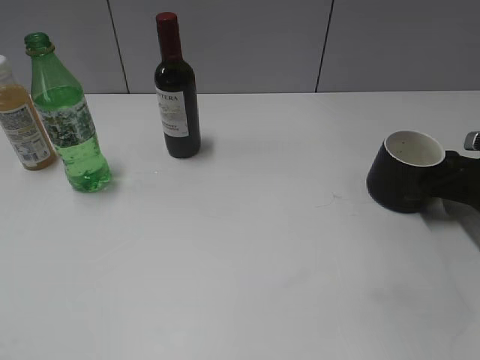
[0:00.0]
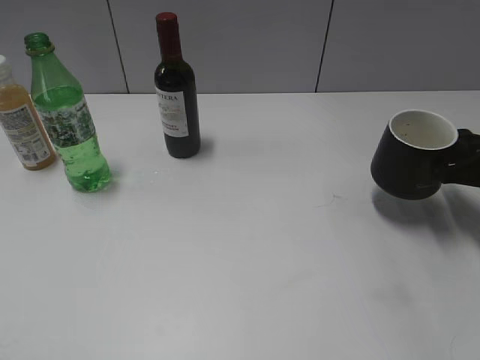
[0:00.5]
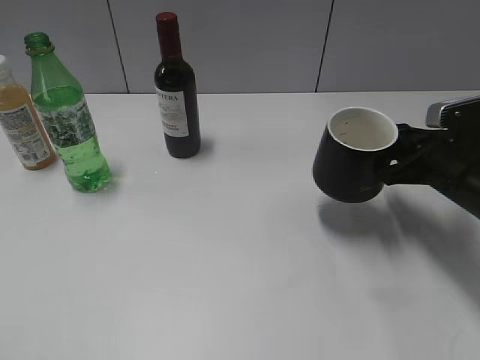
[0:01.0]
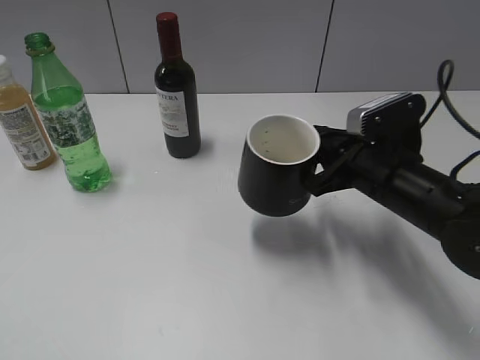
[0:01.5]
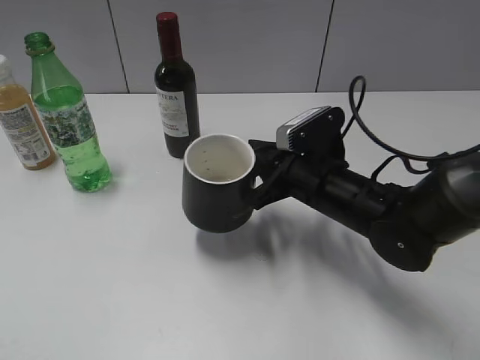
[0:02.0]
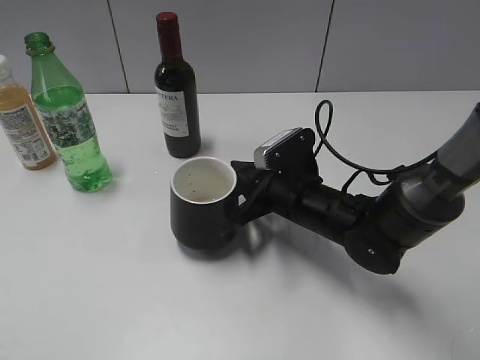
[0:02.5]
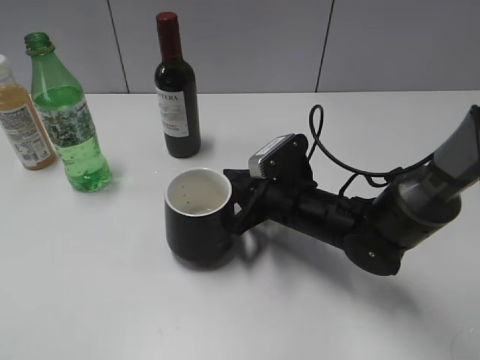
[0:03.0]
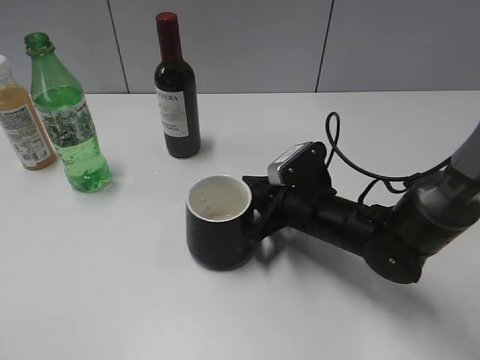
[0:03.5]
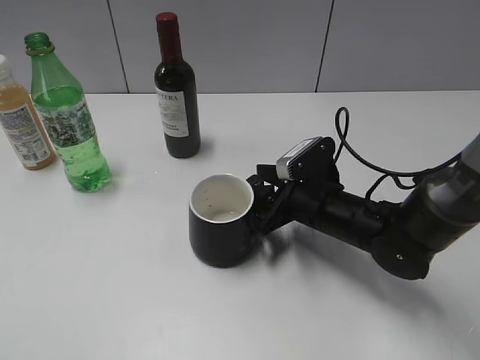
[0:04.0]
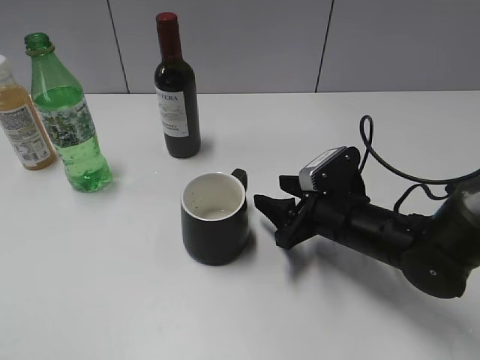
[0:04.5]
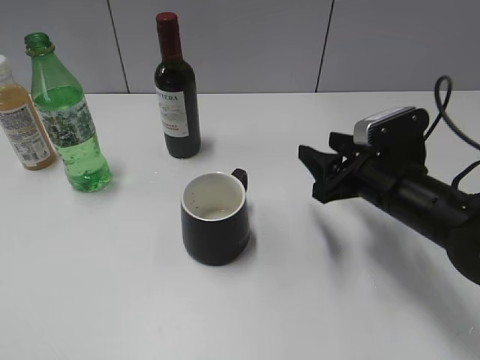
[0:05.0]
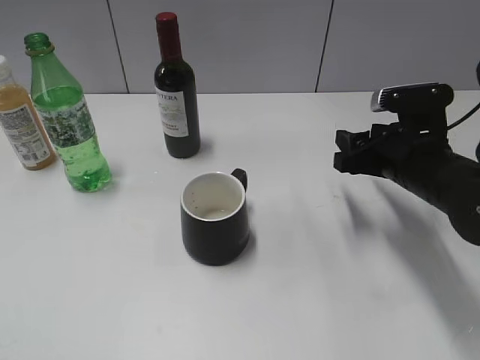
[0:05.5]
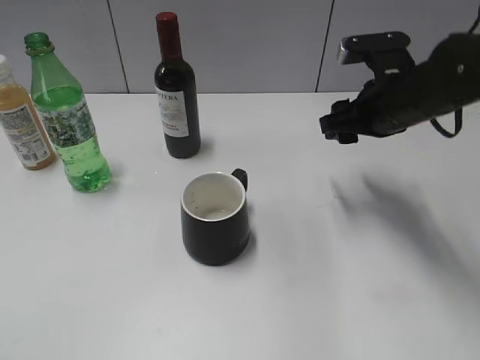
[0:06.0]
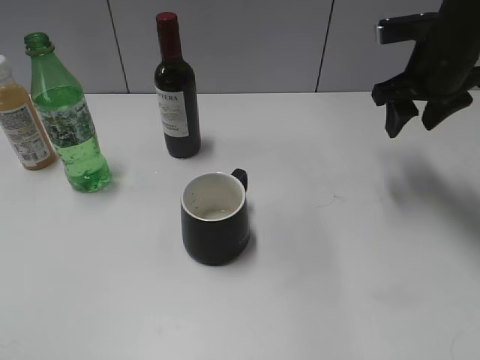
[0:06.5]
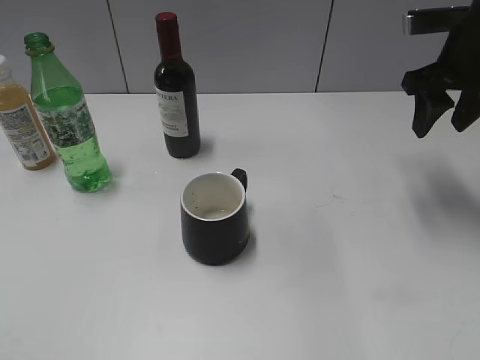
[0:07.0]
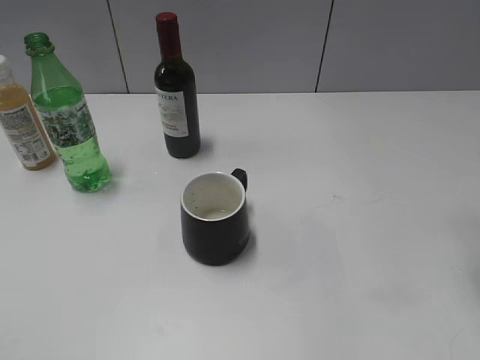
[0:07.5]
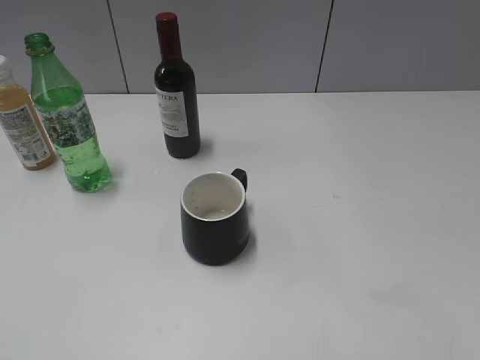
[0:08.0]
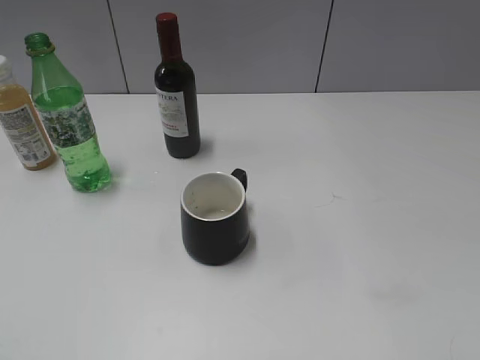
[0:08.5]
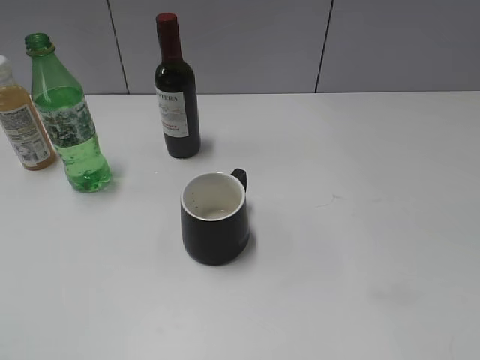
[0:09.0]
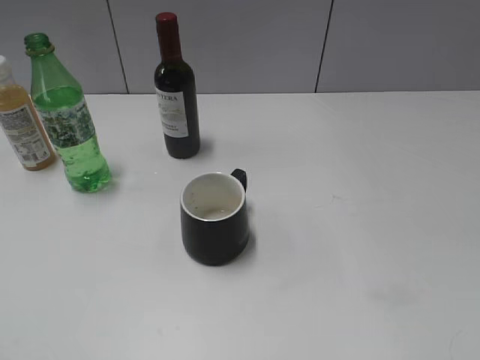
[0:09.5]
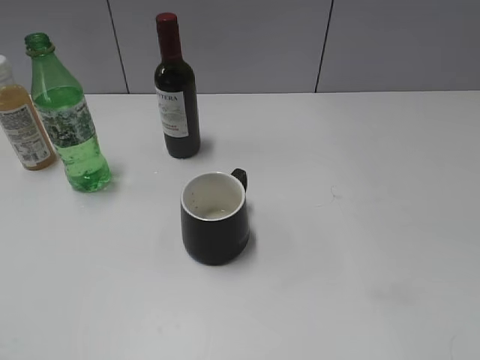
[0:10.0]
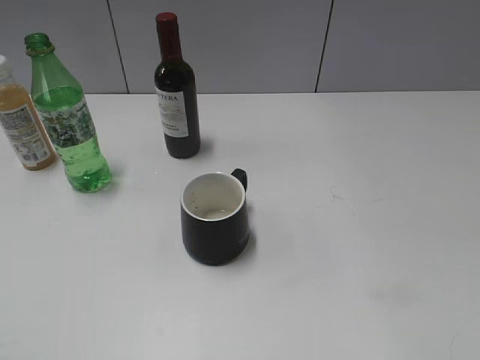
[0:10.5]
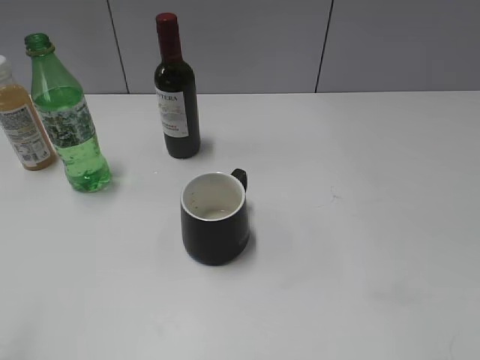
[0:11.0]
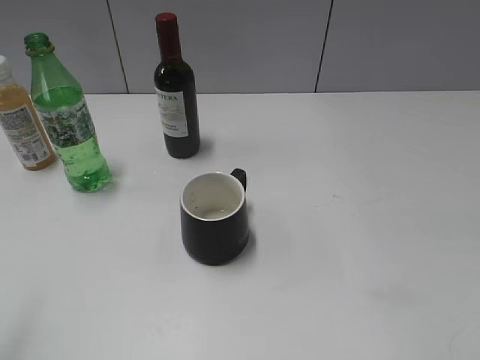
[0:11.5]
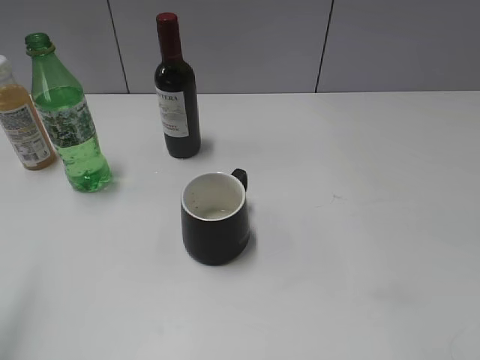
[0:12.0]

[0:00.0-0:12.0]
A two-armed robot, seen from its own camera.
Step, 0:00.5 to 0:04.0: Place the black cup in the center of view with right gripper.
0:00.0 to 0:02.0: The right gripper moves to the left, approximately 25 cm.
0:02.0 to 0:04.0: The right gripper shifts some 5 cm downward, and opens its fingers.
0:04.0 to 0:06.0: The right gripper is displaced upward, to the right and forward by approximately 15 cm.
0:06.0 to 0:08.0: The right gripper goes some 25 cm backward, to the right and upward.

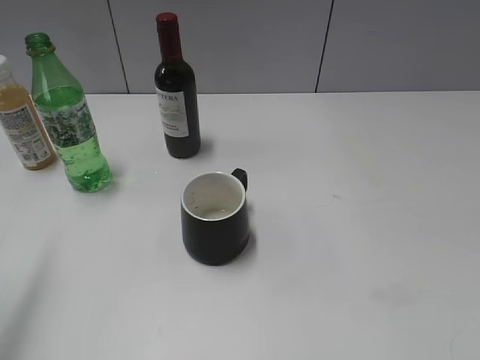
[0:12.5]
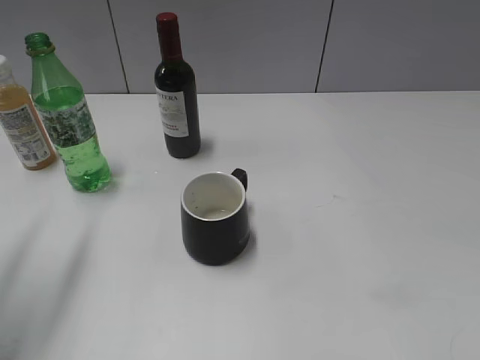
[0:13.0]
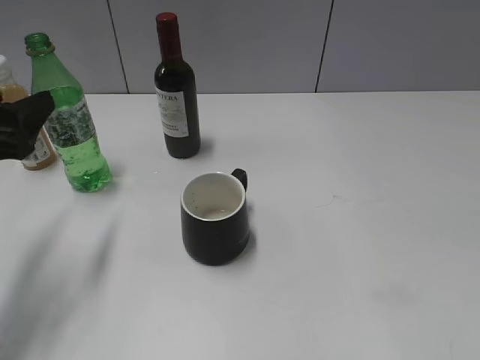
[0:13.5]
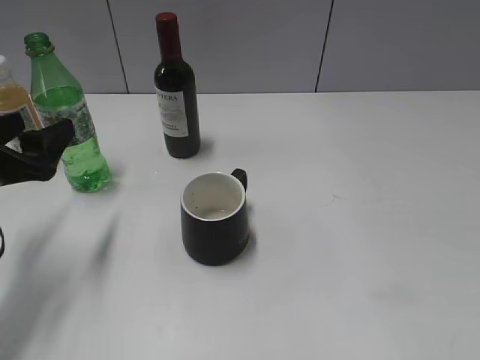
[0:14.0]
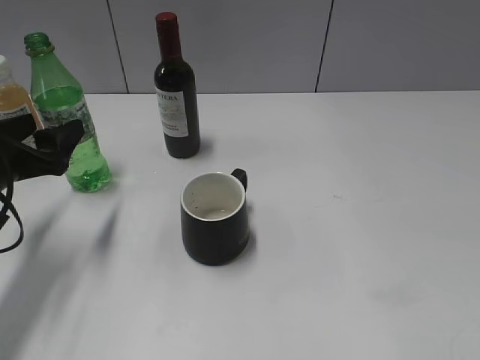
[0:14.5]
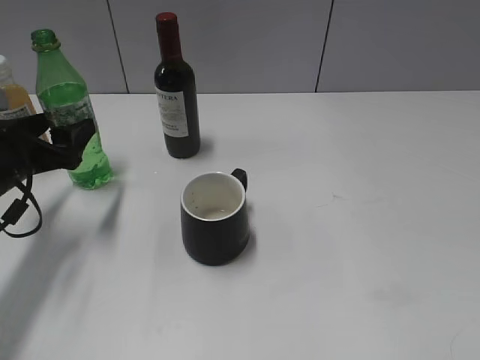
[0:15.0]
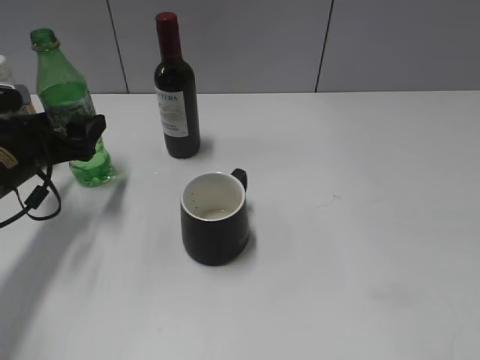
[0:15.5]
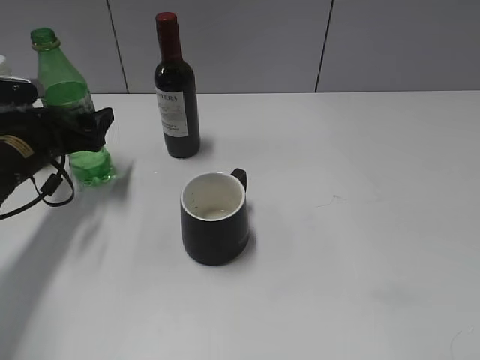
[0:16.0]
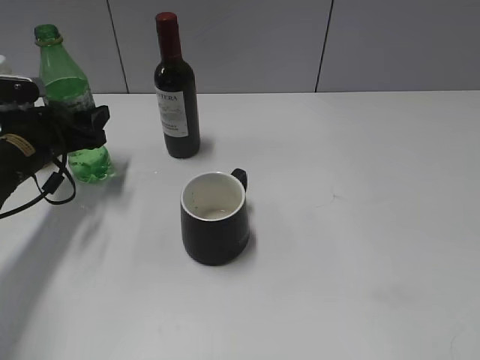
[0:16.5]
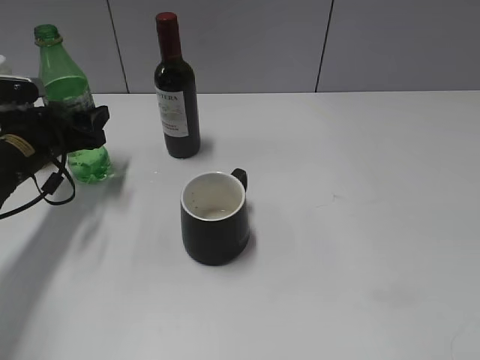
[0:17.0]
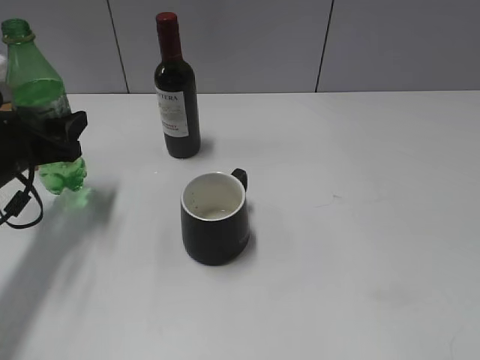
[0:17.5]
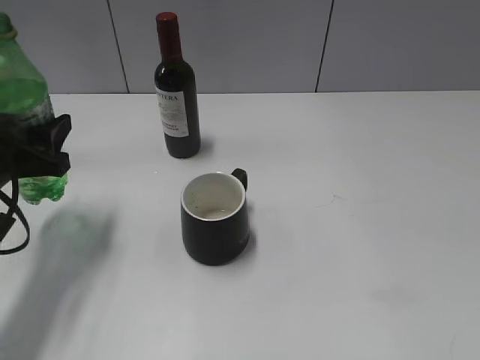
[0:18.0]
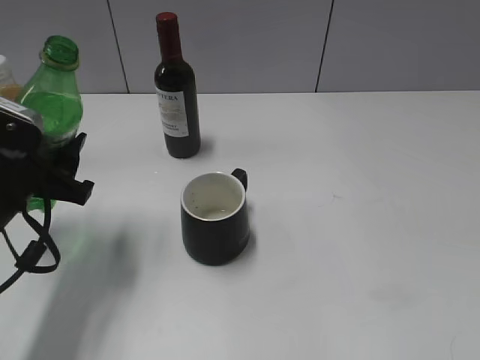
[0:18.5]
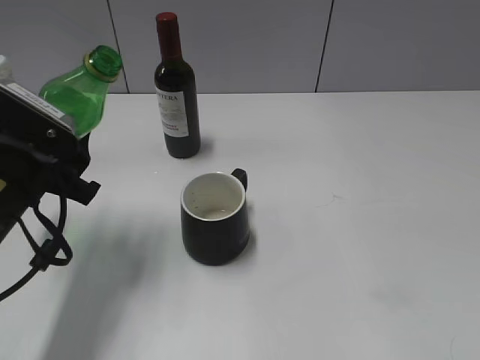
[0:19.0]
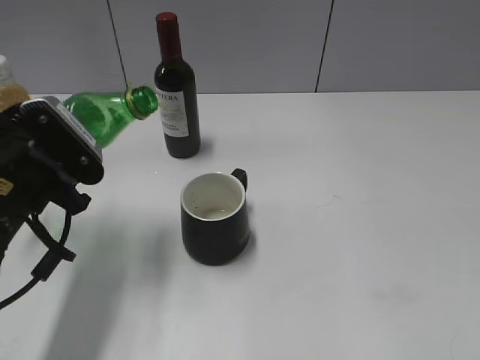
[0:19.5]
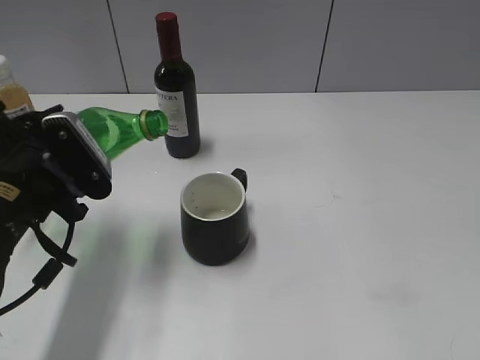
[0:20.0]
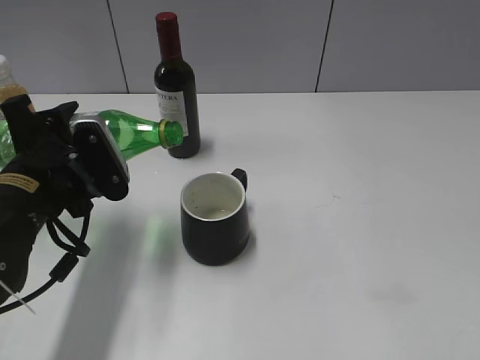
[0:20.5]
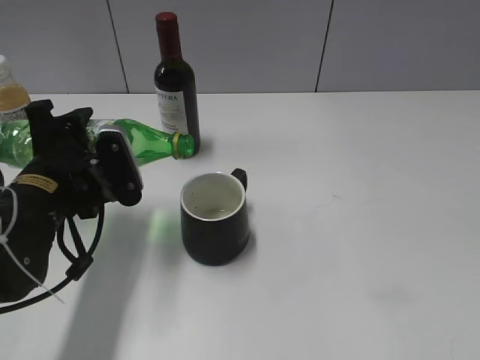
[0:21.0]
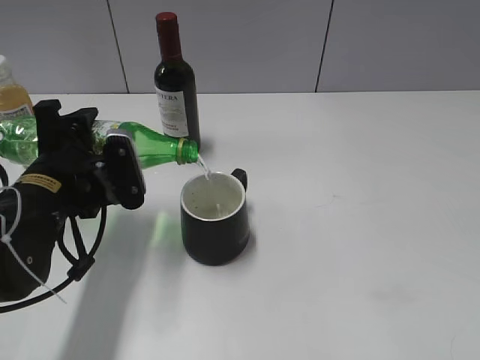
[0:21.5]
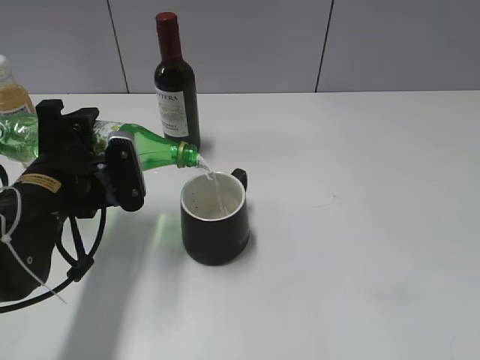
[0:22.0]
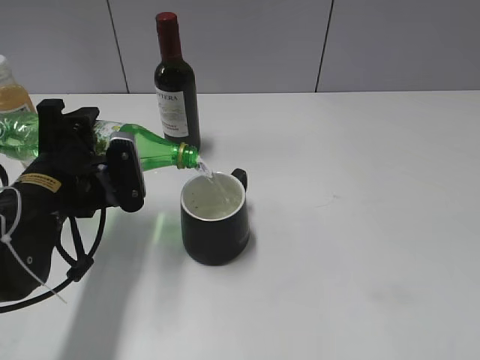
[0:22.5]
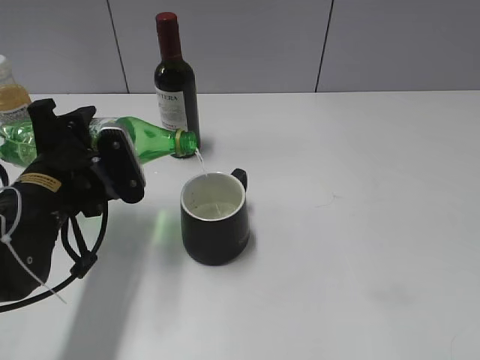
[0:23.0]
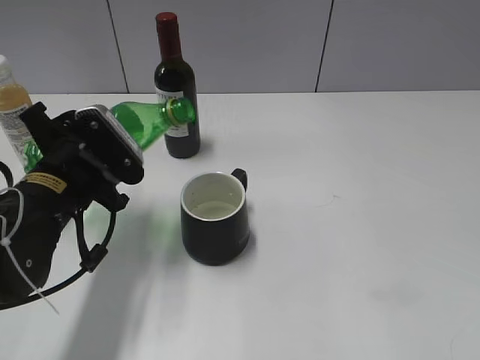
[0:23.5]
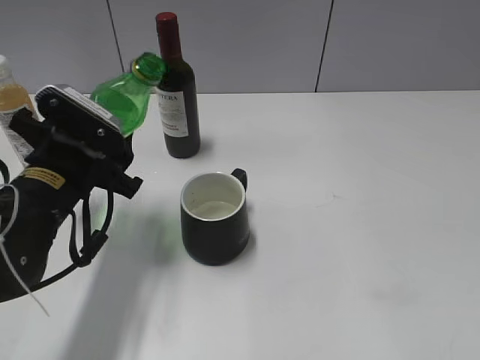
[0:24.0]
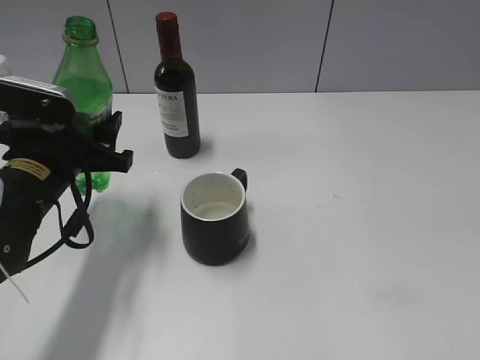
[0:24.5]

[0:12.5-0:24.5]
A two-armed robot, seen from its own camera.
Step, 0:12.5 to 0:16.5: Grasp the bottle with sprite with left gripper.
Step, 0:17.5 to 0:23.0: Pour the sprite from bottle to cup with left gripper.
0:12.5 to 0:14.5: The left gripper is displaced downward and forward by about 15 cm.
0:14.5 to 0:16.5: The left gripper heads forward, covering about 10 cm, and closes up.
0:16.5 to 0:18.5: The left gripper shifts approximately 15 cm backward.
0:20.5 to 0:22.5: There are only small adjustments of the grippers.

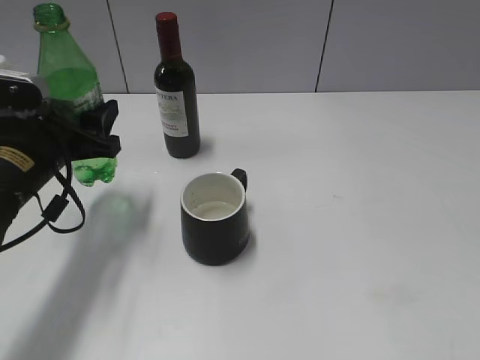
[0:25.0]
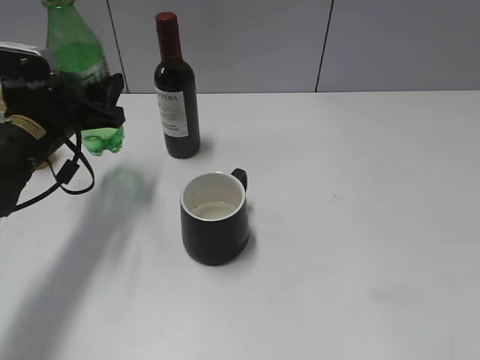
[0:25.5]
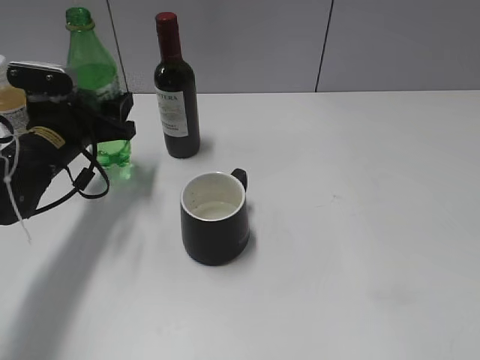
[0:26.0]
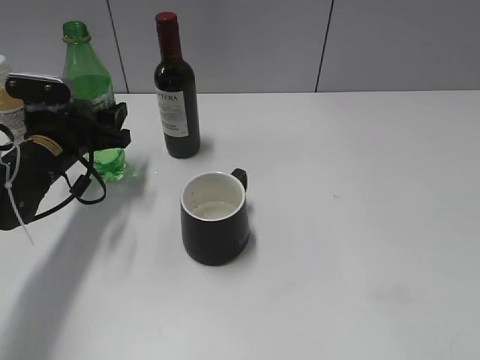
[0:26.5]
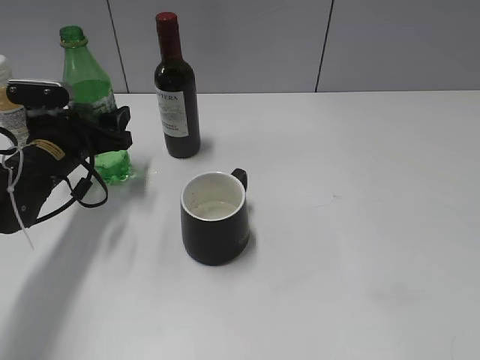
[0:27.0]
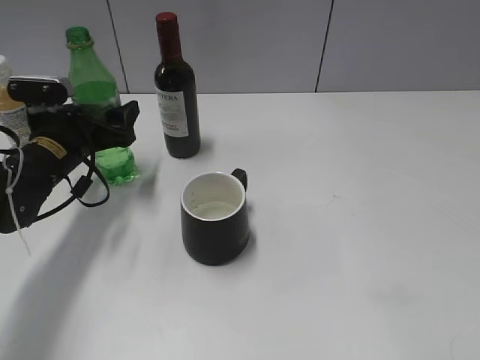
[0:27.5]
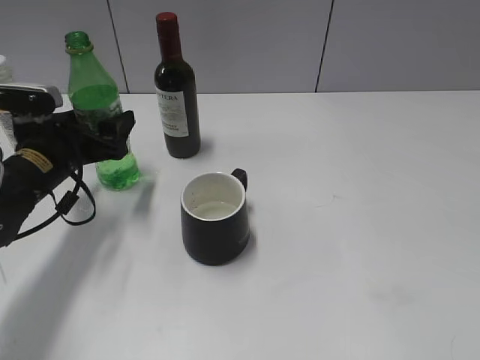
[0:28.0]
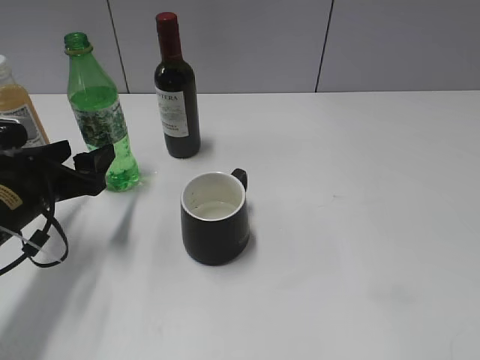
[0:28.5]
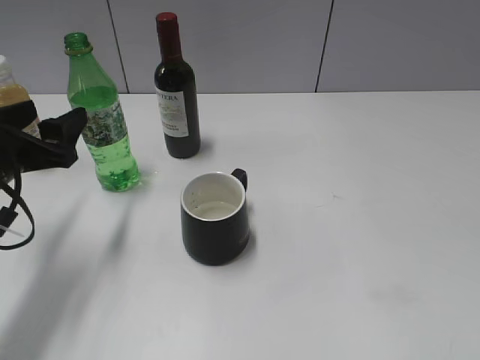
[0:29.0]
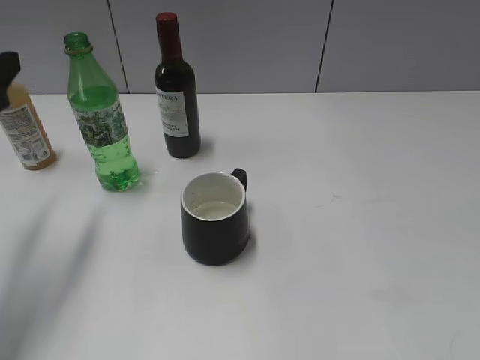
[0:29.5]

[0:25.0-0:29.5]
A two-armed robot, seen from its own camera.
Step, 0:25.0 to 0:28.5: Place the sprite bottle on the table with left gripper.
0:25.0 to 0:27.0: The left gripper moves forward, about 5 cm.
0:27.0 to 0:29.5: The left gripper heads upward, backward and to the left, covering some 20 cm.
